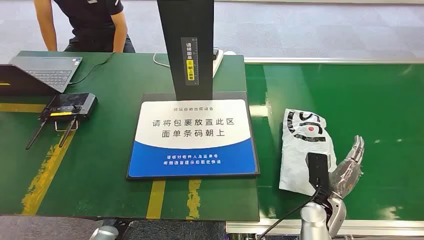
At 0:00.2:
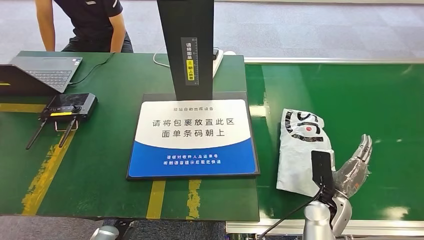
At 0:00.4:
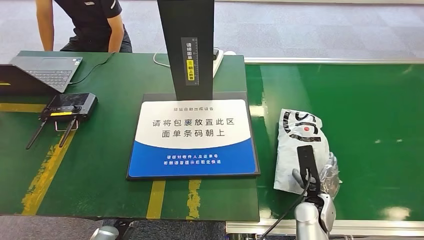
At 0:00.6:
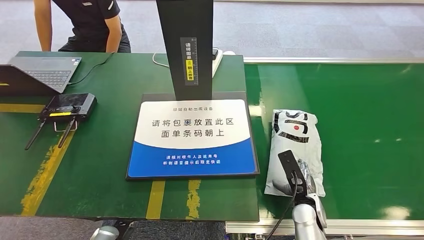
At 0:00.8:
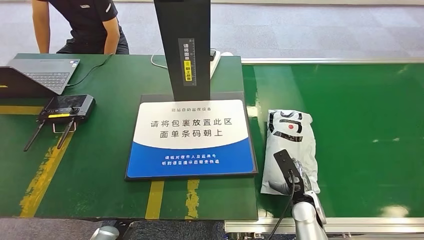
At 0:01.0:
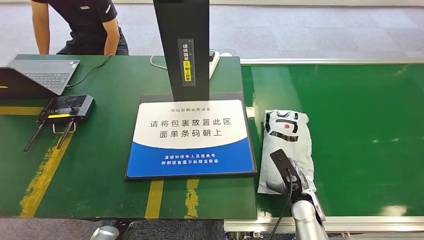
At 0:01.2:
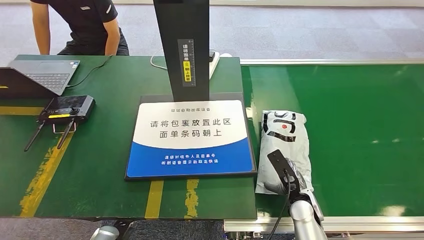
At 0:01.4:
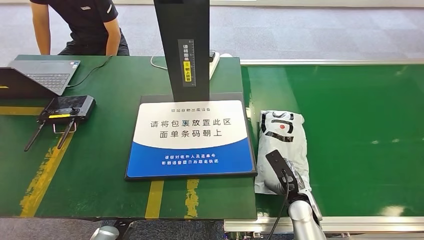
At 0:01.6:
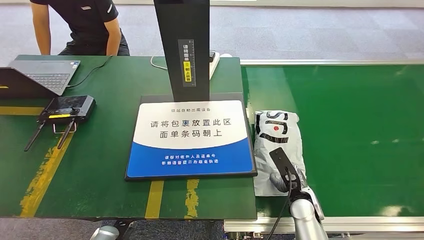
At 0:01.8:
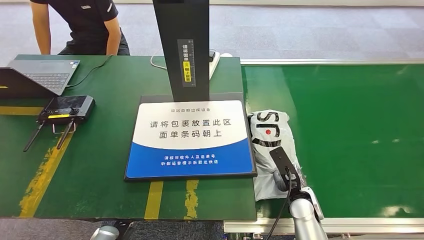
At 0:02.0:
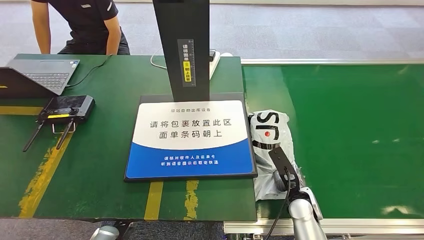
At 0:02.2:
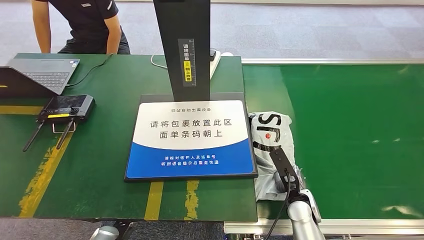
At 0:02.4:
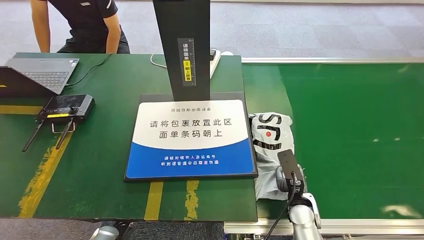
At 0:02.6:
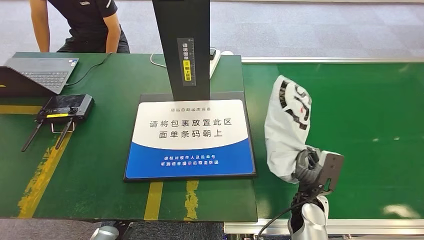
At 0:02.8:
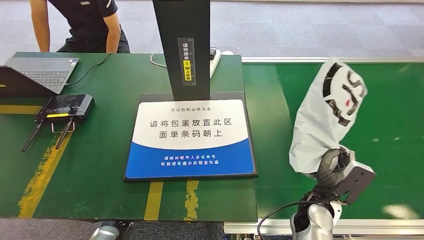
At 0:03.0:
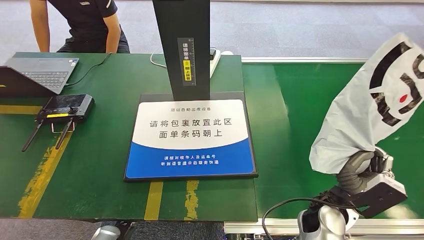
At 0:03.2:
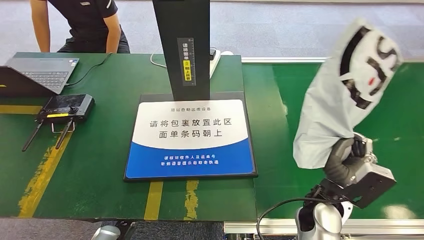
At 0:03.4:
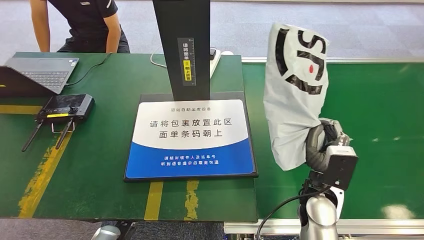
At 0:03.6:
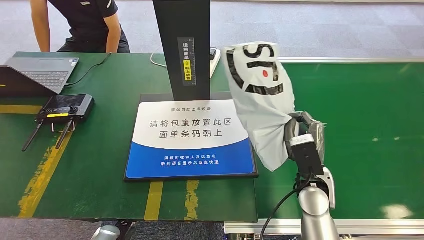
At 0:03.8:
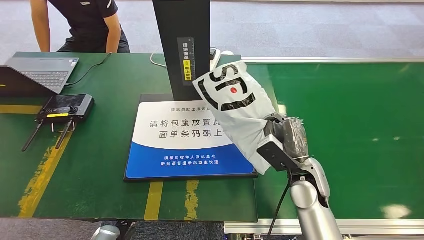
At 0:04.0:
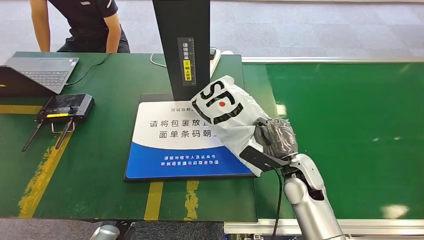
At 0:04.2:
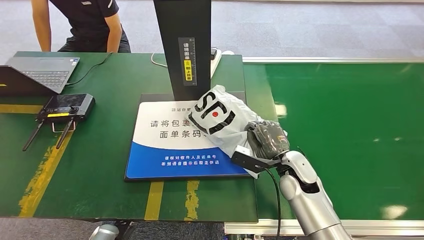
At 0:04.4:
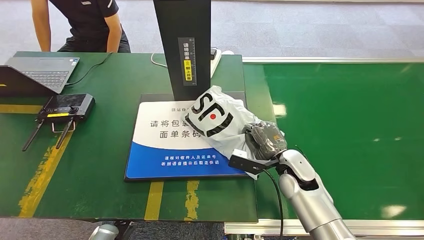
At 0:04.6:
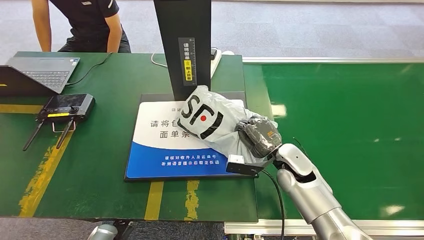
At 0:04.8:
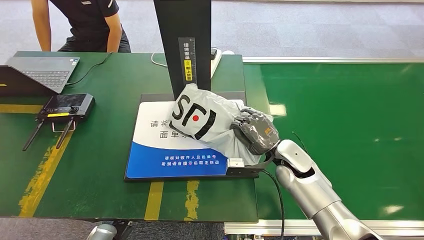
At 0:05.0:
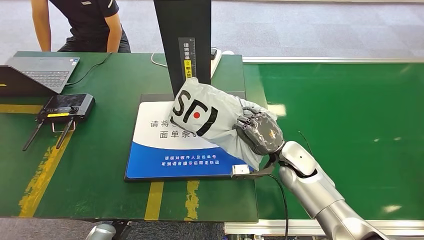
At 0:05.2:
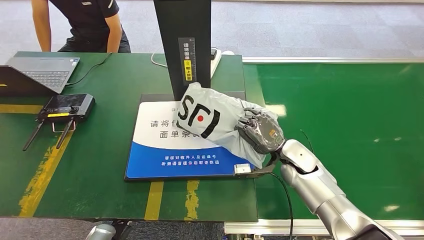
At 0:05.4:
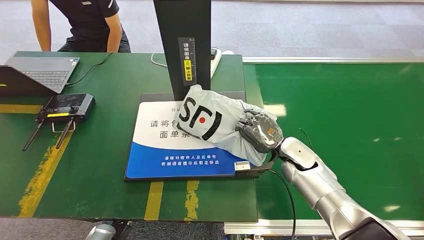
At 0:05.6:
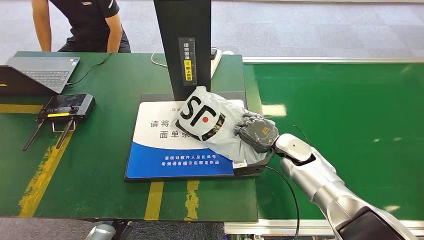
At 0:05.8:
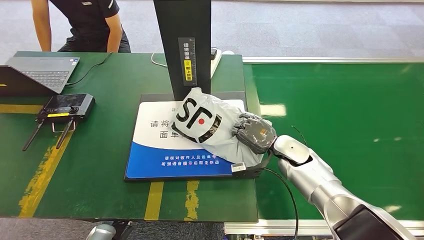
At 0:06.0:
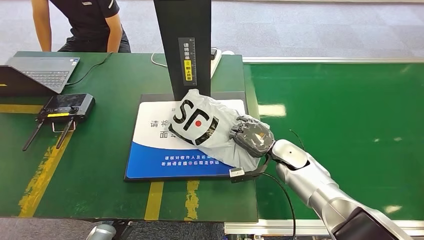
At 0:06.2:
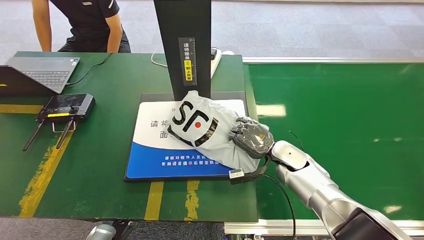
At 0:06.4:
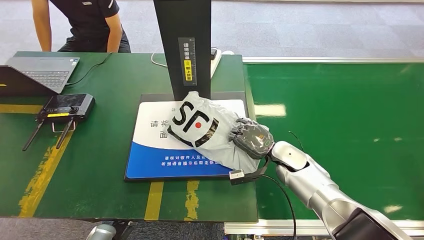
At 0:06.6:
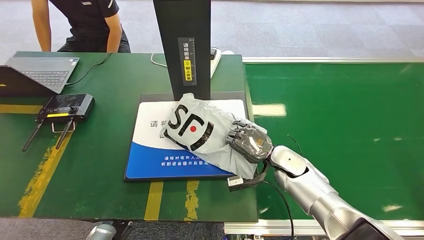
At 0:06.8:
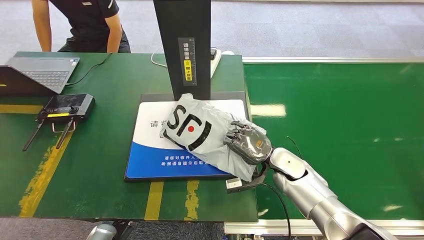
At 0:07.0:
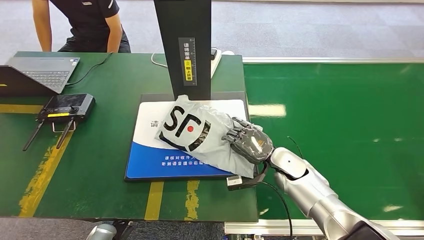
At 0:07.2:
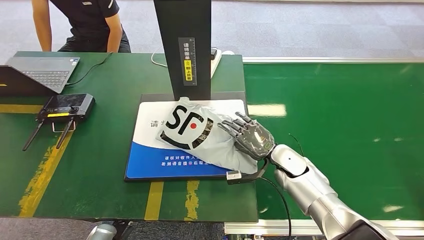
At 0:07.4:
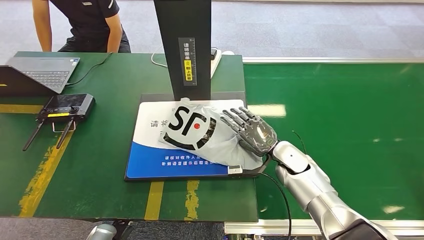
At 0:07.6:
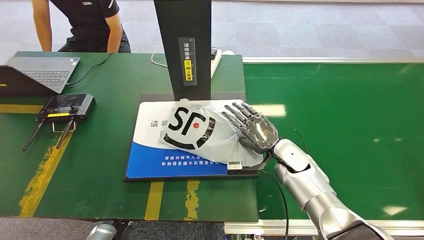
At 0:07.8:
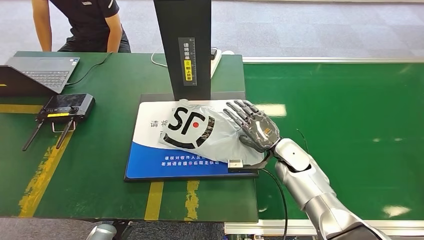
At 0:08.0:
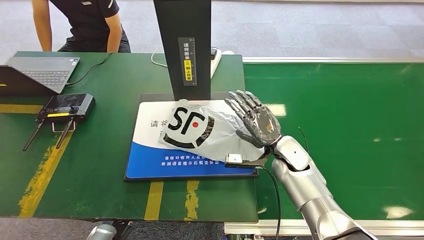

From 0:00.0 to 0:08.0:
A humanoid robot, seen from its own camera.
Step, from 0:00.0 to 0:02.8: Pick up the package from the conveyor belt.
Step, from 0:03.2 to 0:08.0: Place the package onto the inbound machine.
From 0:04.8 to 0:08.0: The hands move only a little.

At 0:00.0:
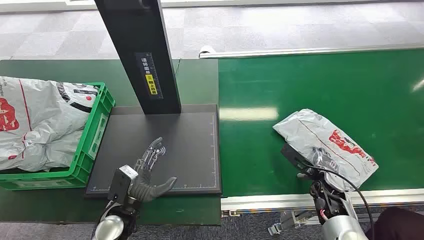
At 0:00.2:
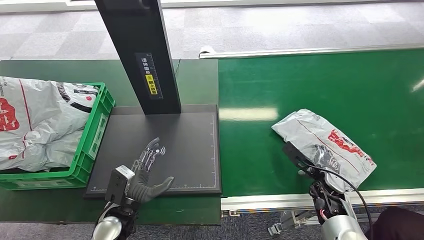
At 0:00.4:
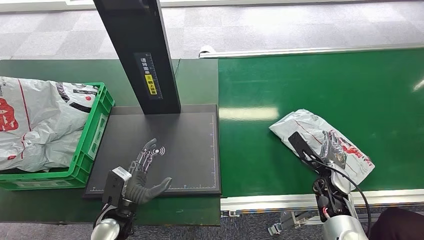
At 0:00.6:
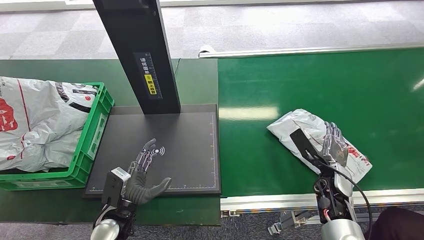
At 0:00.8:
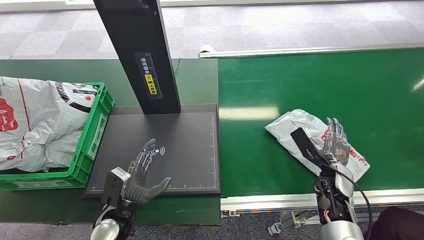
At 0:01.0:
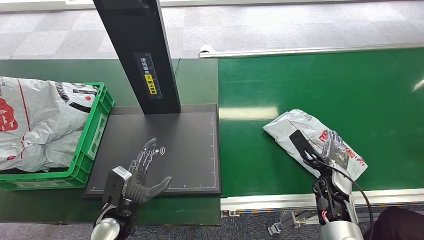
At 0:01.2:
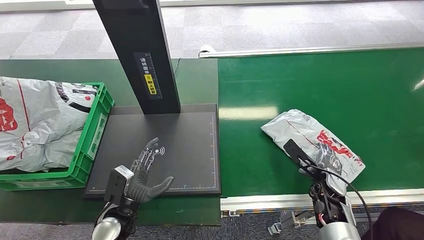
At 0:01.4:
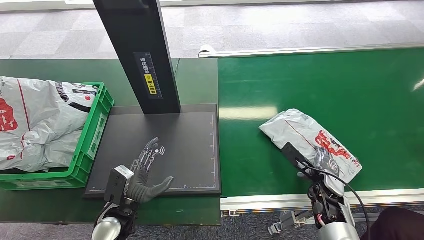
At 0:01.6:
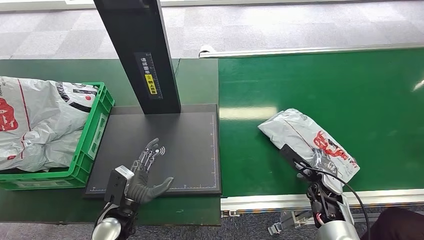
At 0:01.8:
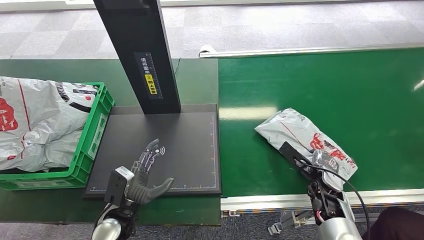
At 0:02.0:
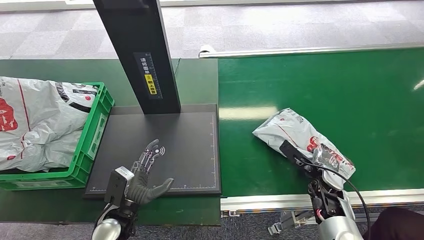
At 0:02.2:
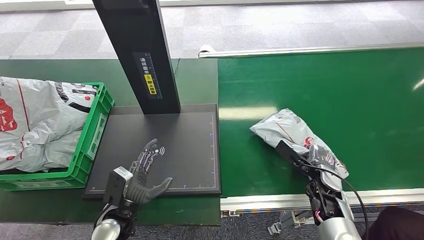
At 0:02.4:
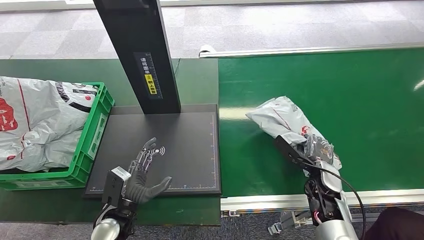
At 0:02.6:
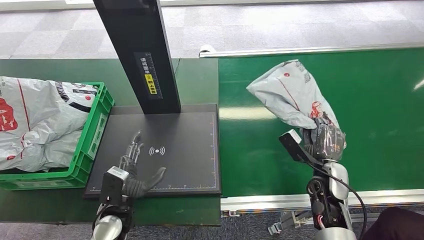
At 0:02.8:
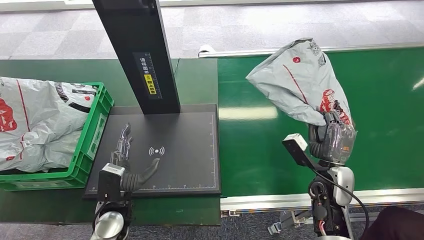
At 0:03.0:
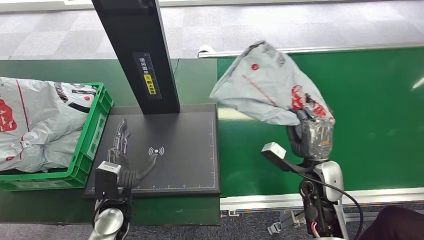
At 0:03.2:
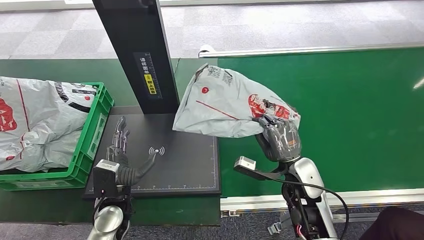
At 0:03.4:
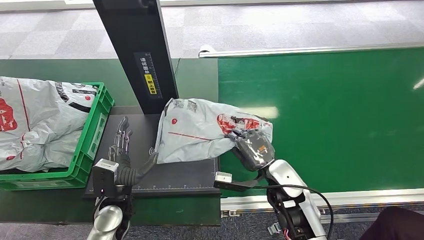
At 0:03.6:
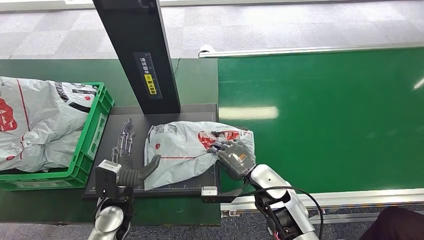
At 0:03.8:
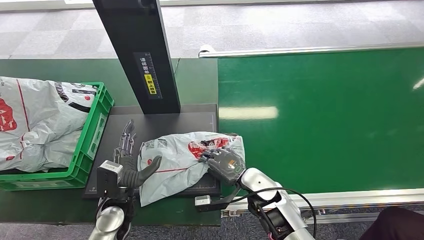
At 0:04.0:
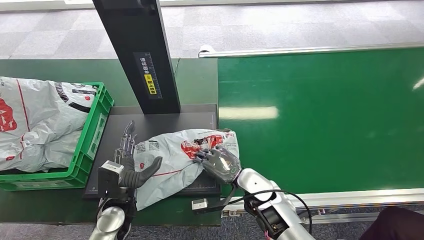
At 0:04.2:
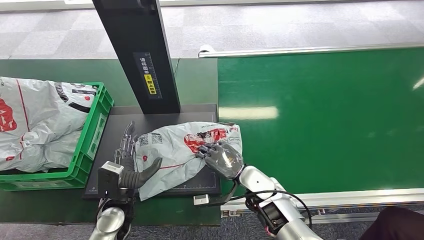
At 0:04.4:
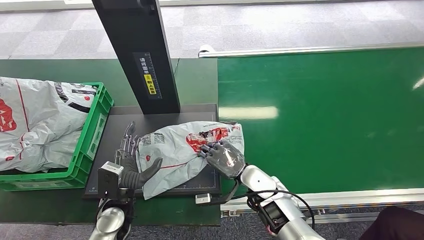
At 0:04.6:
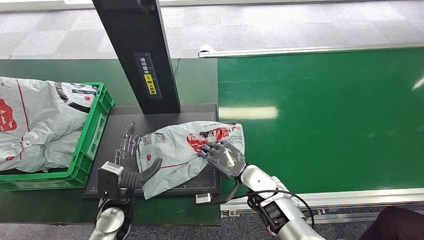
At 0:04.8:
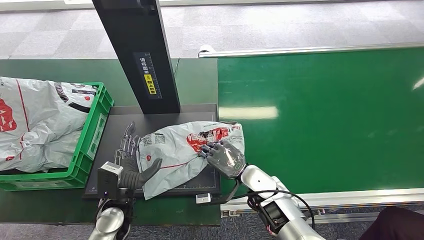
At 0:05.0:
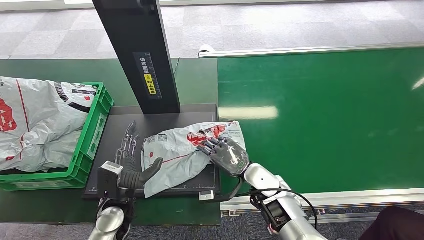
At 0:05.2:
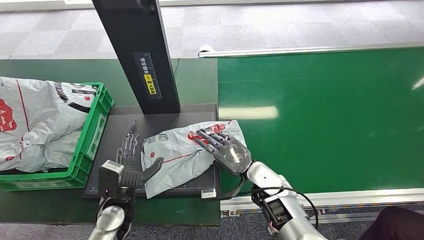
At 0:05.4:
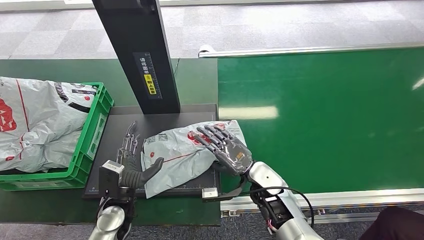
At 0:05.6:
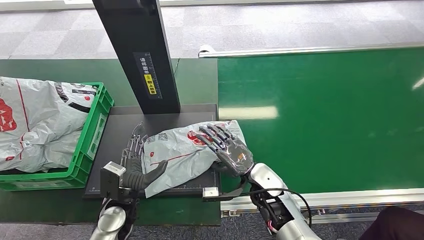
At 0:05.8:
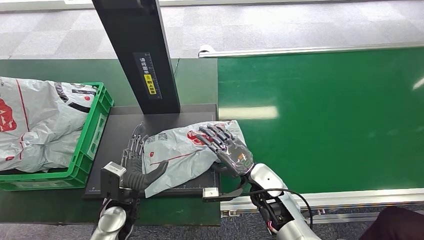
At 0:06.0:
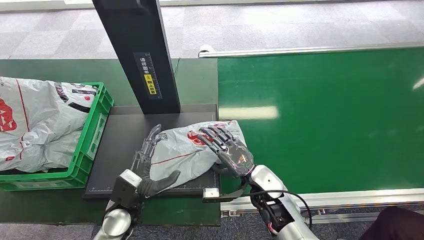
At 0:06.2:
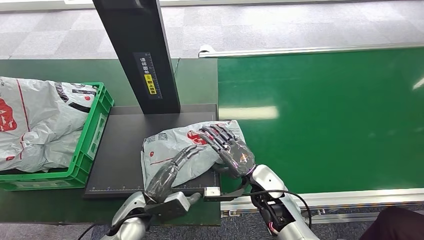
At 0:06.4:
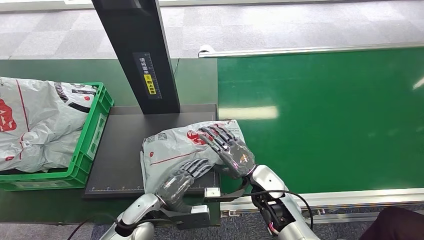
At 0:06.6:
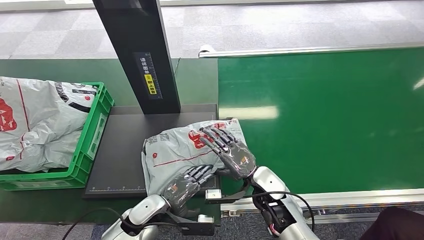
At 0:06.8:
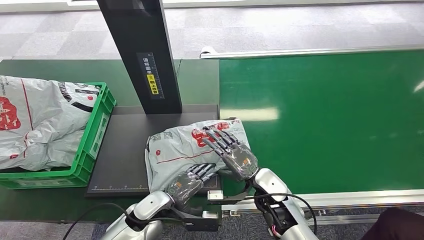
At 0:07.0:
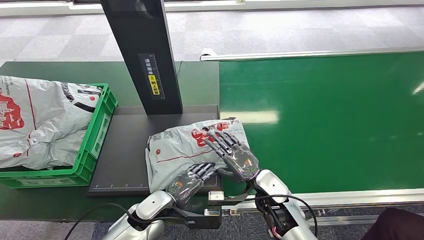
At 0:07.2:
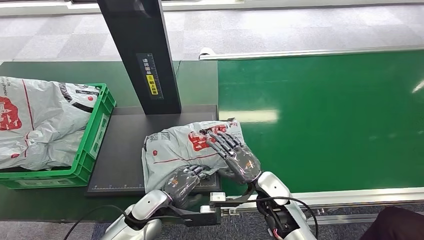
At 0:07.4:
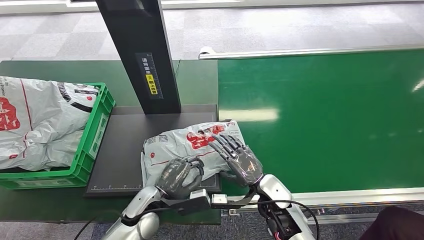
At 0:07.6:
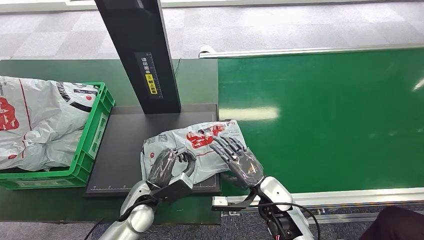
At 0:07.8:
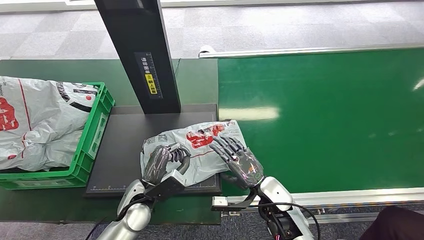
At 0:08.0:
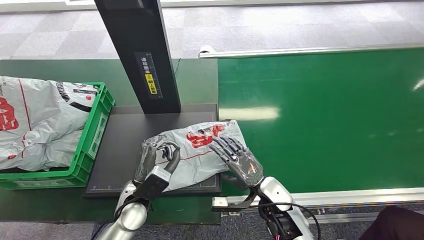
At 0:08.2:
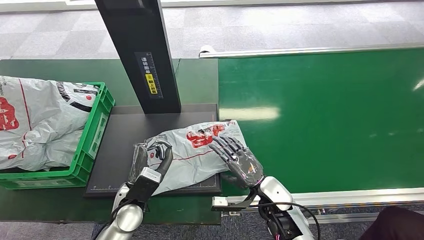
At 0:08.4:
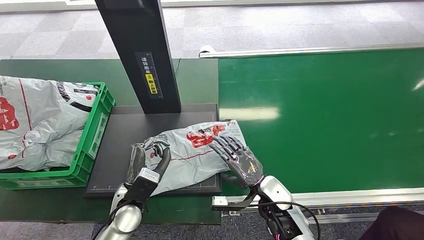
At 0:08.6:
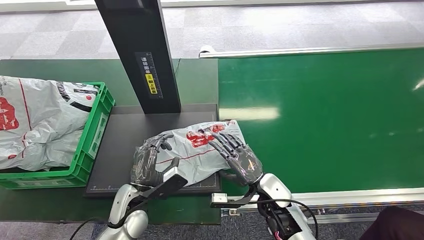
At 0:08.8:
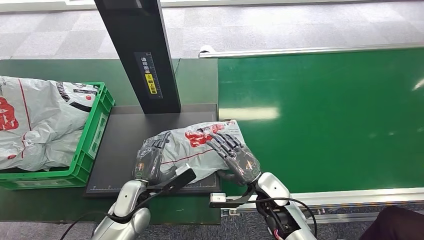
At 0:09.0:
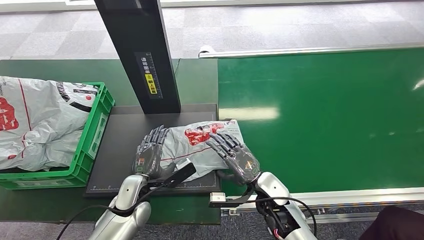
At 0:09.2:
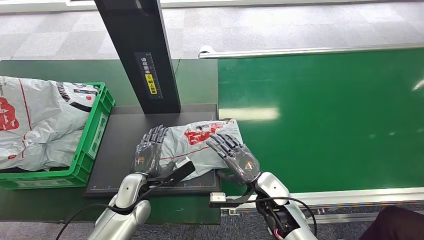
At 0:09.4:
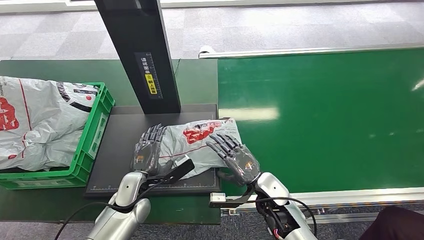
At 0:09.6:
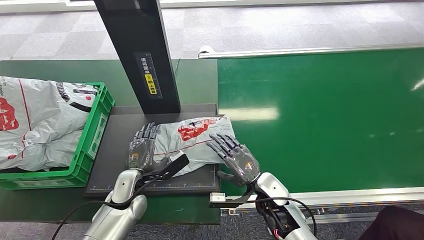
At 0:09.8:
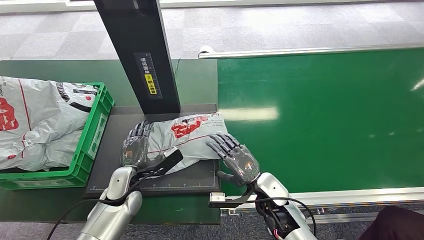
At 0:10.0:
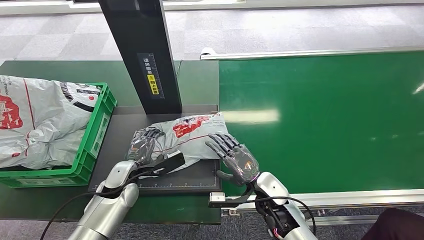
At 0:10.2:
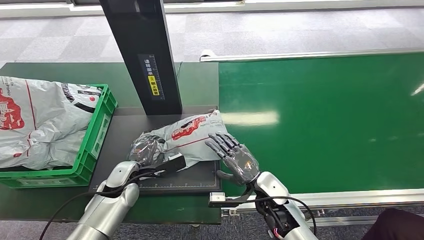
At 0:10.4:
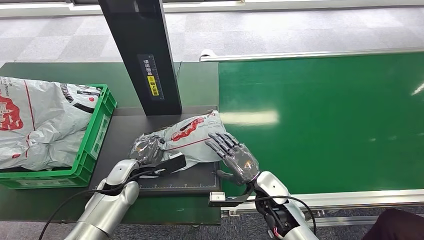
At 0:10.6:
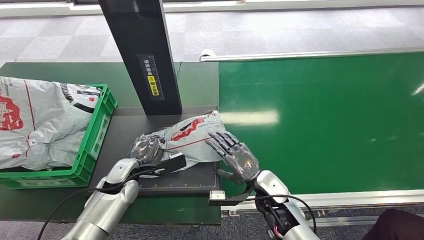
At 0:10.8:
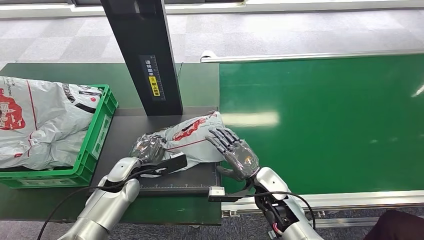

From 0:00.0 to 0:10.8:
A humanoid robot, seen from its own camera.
Step, from 0:00.0 to 0:03.0: Pick up the package from the conveyor belt.
Step, from 0:03.2 to 0:05.8: Place the package onto the inbound machine.
From 0:01.6 to 0:03.0: The right hand heads upward and to the left, covering approximately 10 cm.
